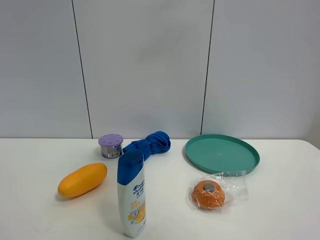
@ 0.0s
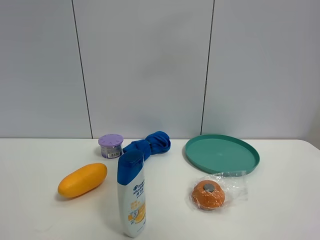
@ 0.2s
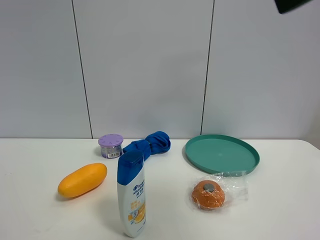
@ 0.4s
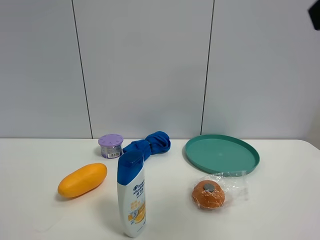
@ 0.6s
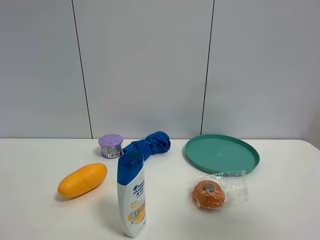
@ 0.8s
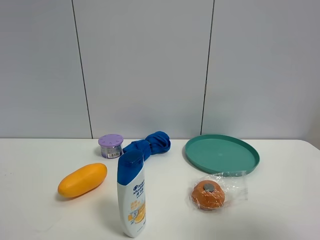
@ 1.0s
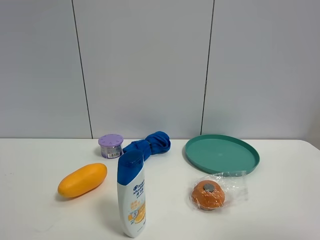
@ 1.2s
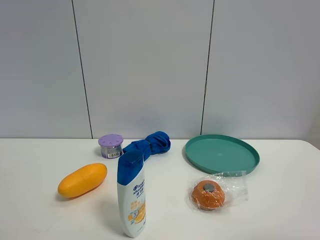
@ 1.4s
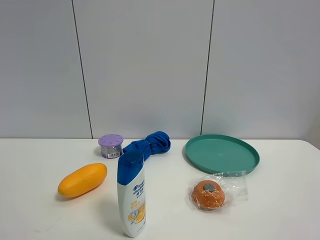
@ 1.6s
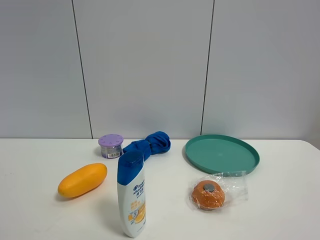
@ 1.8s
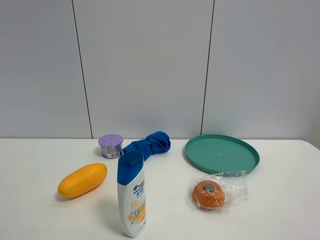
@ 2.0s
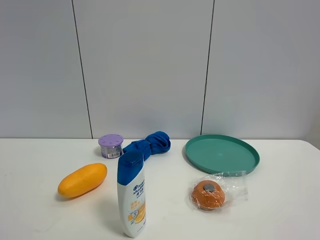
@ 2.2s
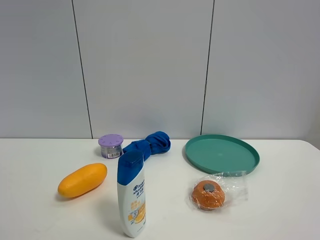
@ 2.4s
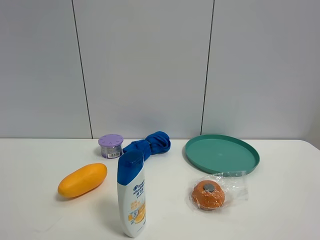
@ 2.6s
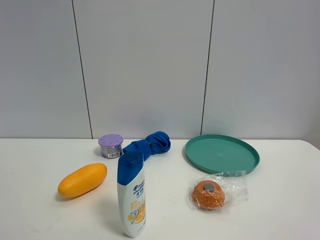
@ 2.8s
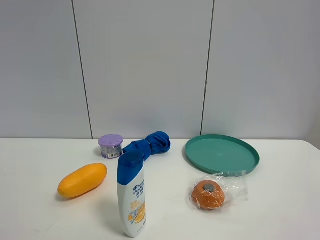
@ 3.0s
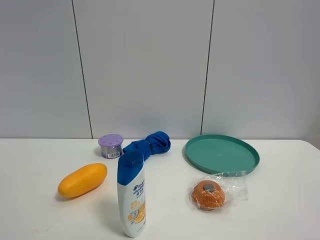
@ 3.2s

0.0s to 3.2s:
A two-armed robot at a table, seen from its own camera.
Task of the whole recording: the gripper move the object.
0.0s to 1.6s: The right gripper goes approximately 35 cm backward, downward and to the right.
1.6s to 3.2s: The two grippers keep their place.

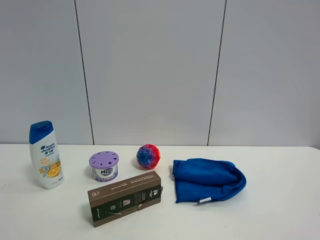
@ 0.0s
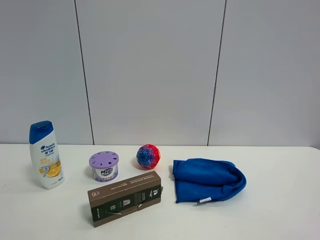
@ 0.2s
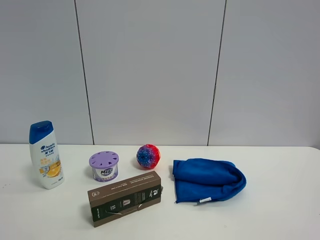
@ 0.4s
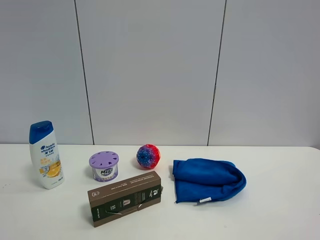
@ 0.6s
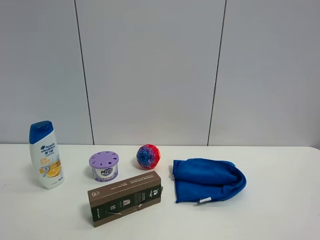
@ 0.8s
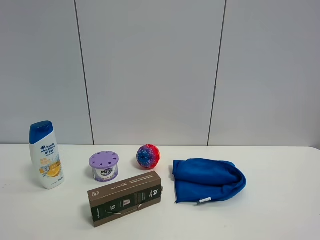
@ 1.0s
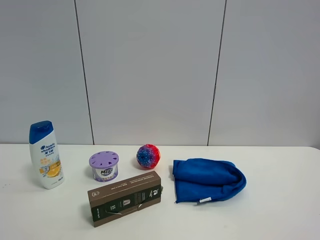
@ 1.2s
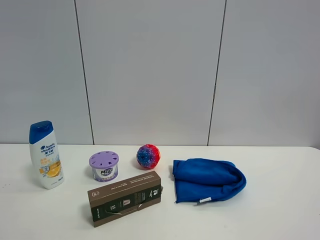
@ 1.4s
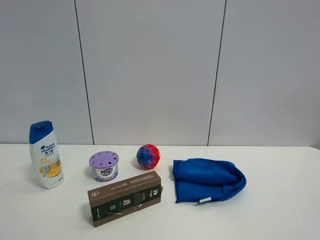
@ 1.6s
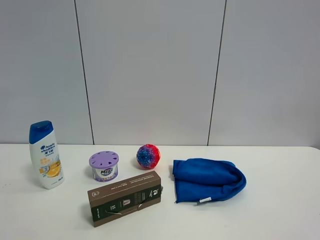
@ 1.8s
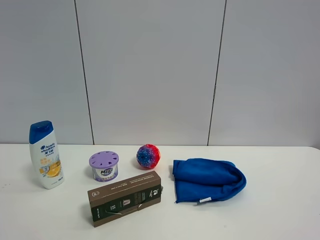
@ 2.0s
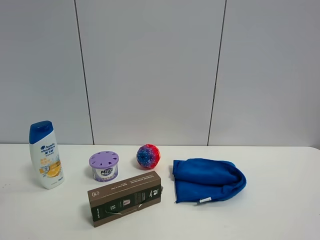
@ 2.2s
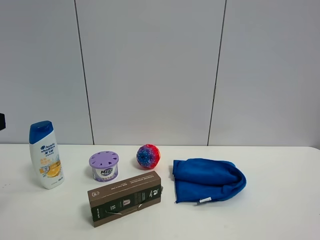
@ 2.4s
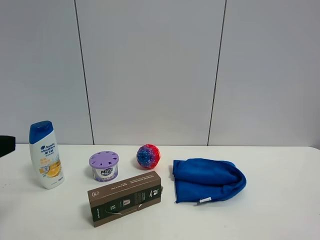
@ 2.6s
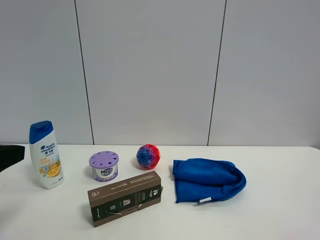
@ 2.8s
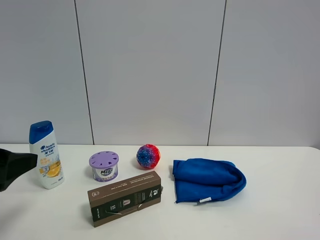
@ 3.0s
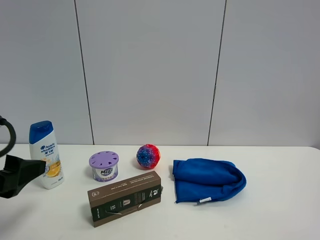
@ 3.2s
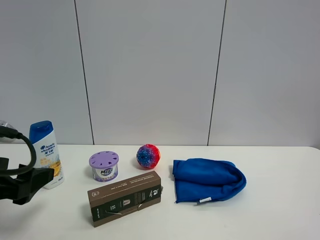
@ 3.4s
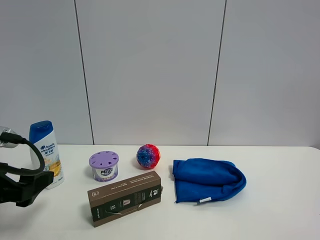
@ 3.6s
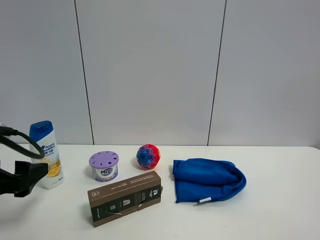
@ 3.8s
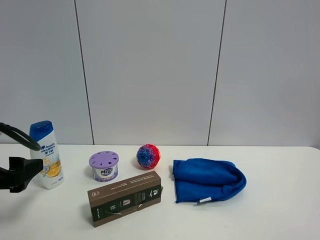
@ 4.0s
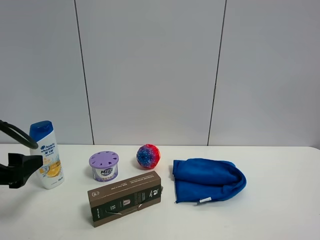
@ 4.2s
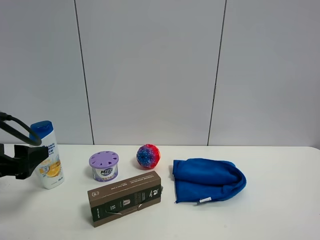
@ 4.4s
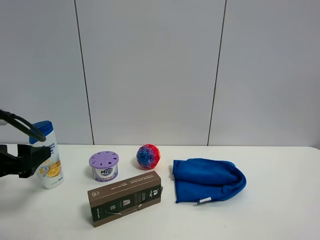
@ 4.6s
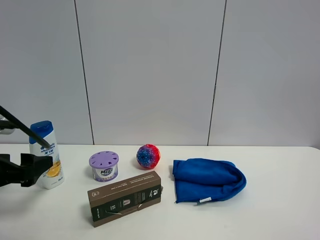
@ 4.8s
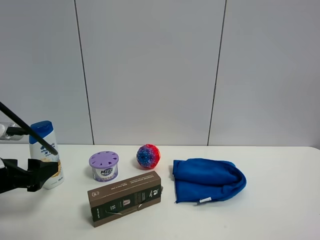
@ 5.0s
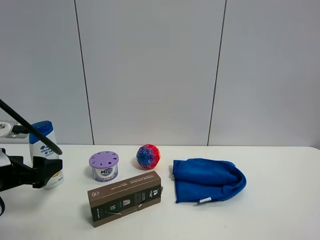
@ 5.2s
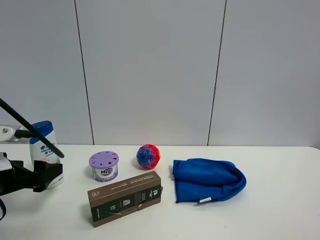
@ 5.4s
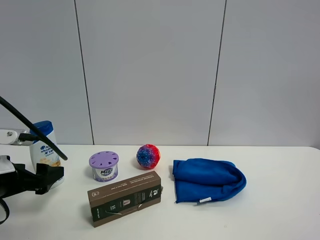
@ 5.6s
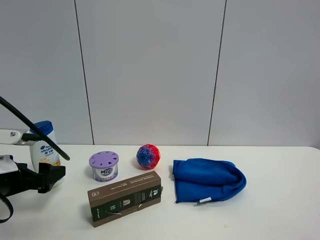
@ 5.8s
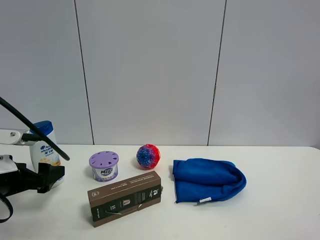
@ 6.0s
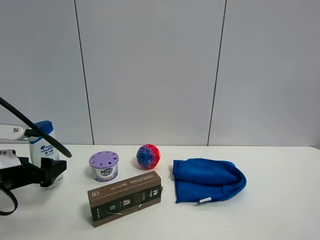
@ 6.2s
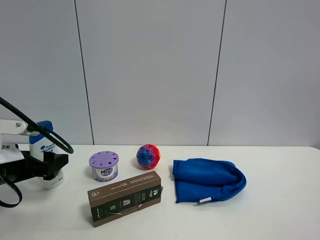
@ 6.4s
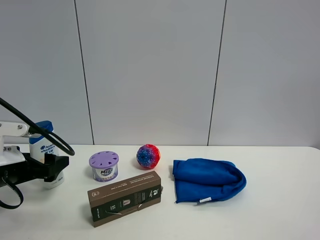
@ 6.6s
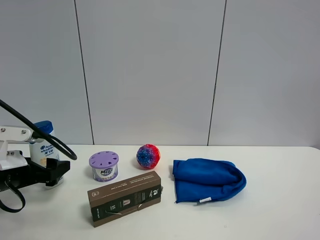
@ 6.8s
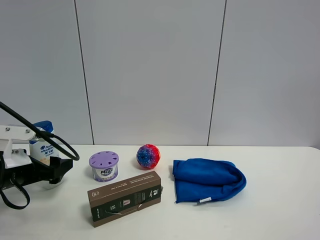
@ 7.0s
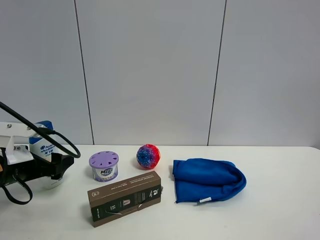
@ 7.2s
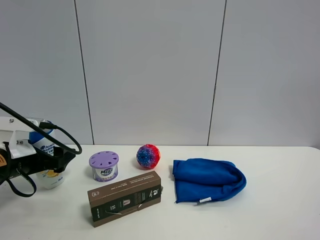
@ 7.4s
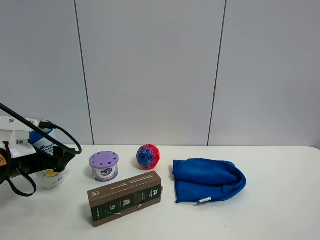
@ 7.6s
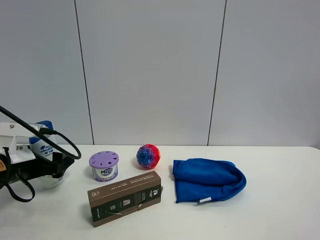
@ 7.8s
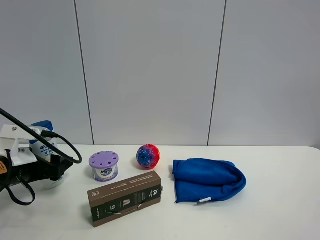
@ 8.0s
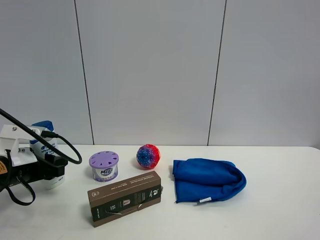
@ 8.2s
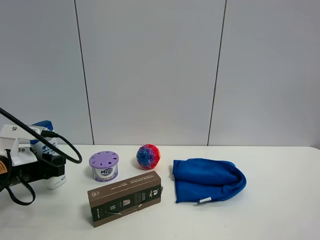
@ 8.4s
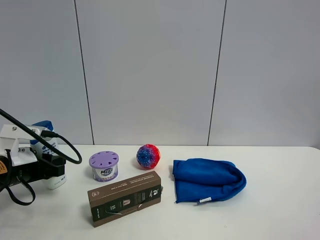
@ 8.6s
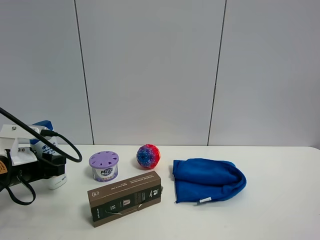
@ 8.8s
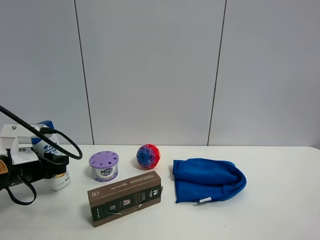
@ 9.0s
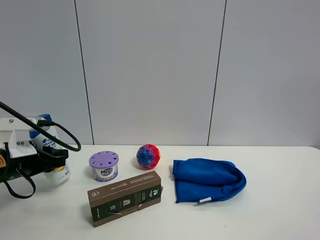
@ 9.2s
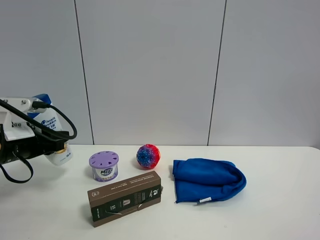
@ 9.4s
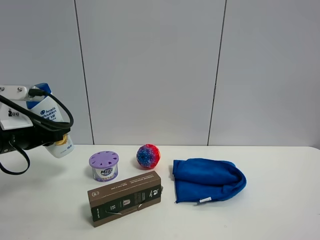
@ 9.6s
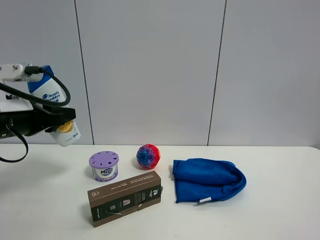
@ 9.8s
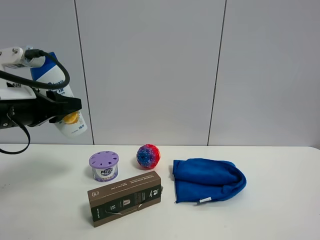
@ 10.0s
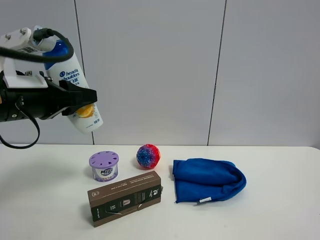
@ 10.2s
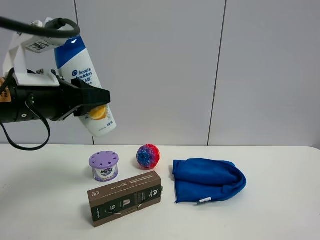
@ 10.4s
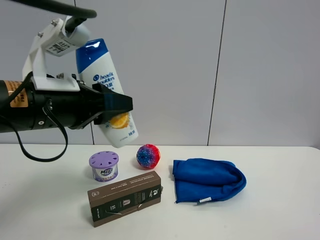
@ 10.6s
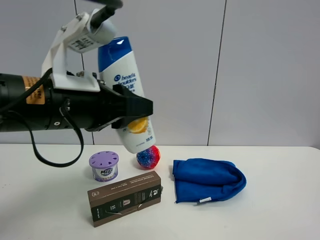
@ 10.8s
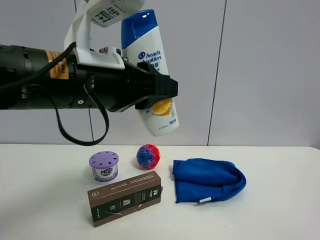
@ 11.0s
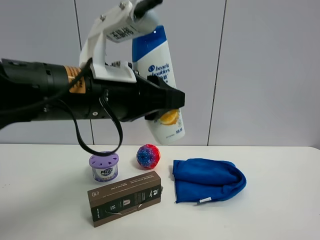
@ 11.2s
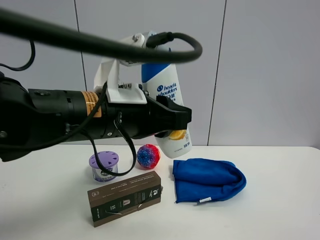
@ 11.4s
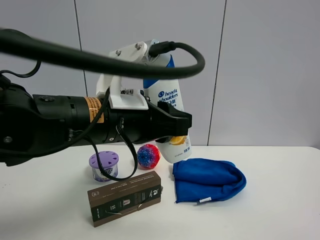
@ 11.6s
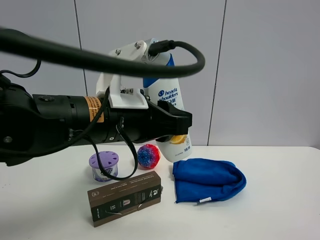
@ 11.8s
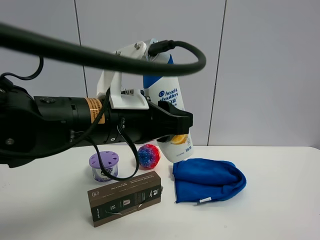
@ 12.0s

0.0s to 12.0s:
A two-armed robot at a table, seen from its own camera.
Task of the whole recording: the gripper move the object.
Step, 0.0s to 8.6s: Grasp the shampoo with the left gripper.
1.6s to 3.0s: The left gripper shifts about 15 cm downward.
3.0s to 4.4s: The left gripper travels forward by approximately 5 cm.
4.4s to 6.0s: The left gripper shifts roughly 5 cm downward.
6.0s to 7.6s: The left gripper shifts approximately 5 cm forward.
7.6s to 9.0s: The left gripper closes up.
9.0s to 10.4s: The left gripper goes approximately 20 cm upward and to the right.
10.4s to 12.0s: The left gripper goes some 10 cm to the right.

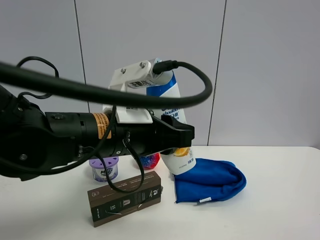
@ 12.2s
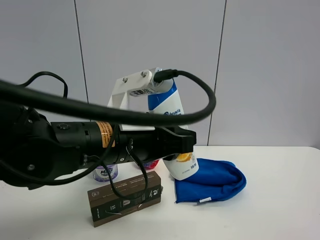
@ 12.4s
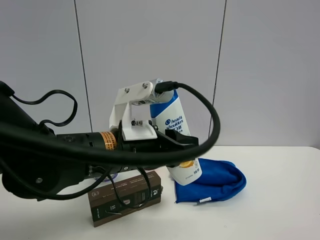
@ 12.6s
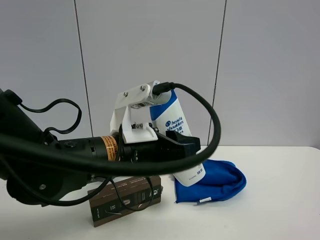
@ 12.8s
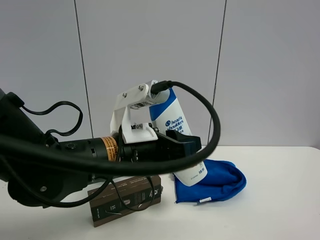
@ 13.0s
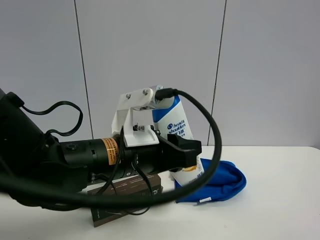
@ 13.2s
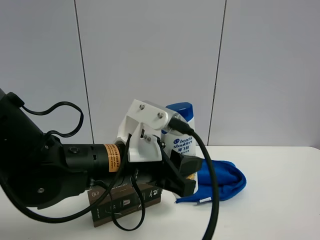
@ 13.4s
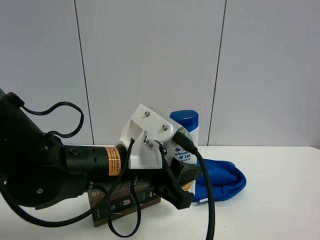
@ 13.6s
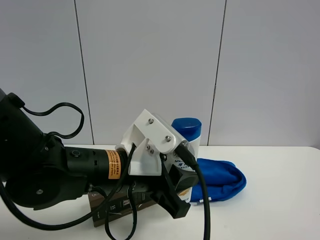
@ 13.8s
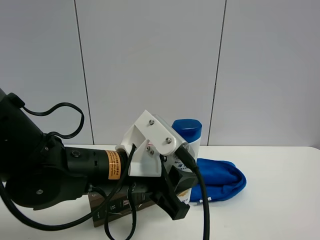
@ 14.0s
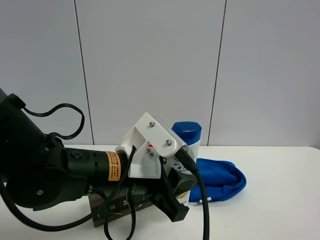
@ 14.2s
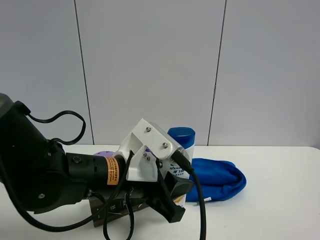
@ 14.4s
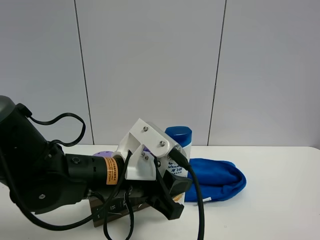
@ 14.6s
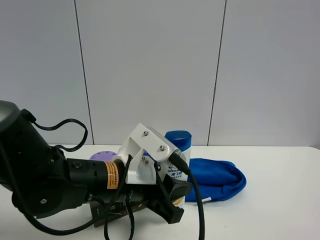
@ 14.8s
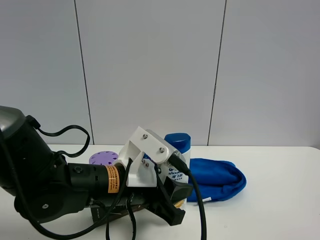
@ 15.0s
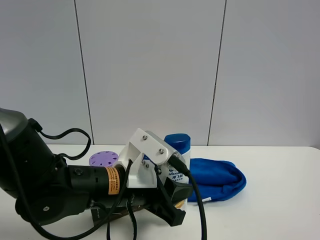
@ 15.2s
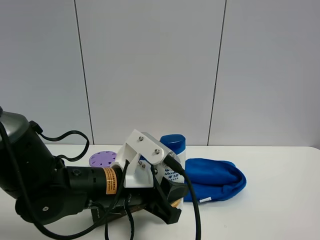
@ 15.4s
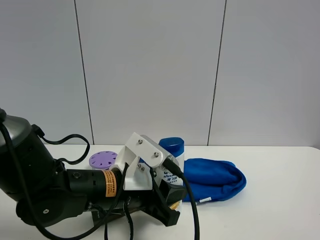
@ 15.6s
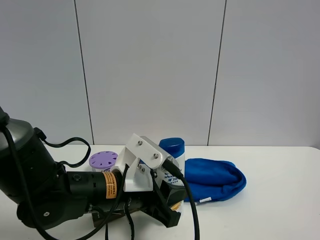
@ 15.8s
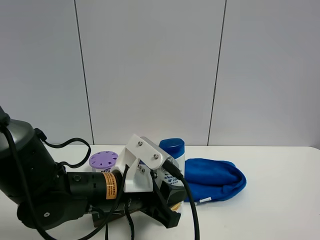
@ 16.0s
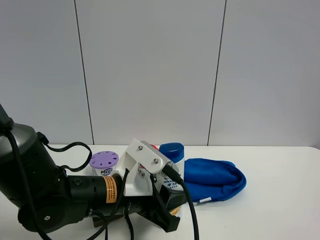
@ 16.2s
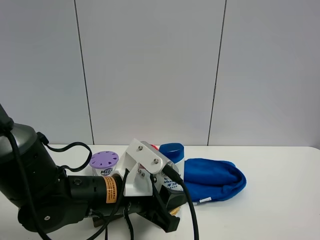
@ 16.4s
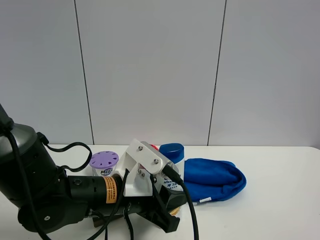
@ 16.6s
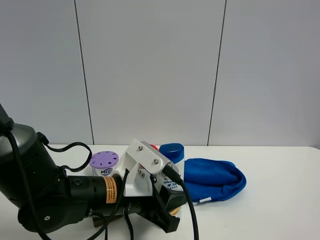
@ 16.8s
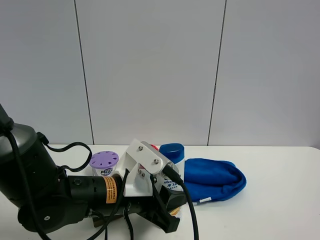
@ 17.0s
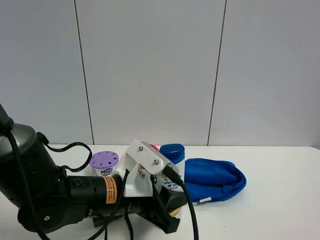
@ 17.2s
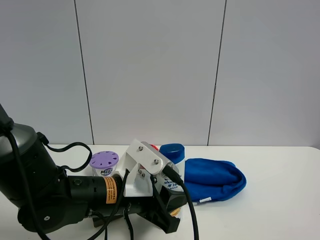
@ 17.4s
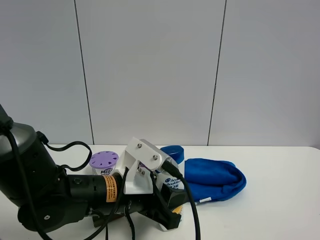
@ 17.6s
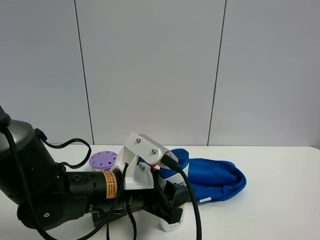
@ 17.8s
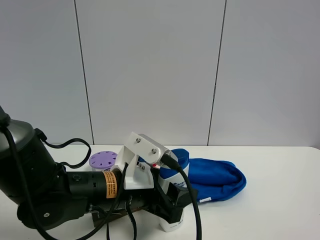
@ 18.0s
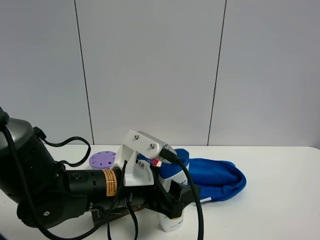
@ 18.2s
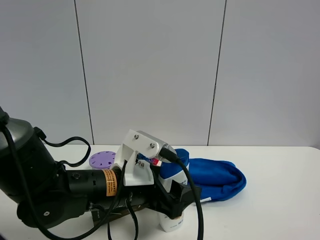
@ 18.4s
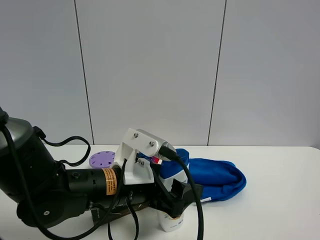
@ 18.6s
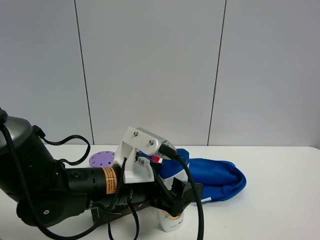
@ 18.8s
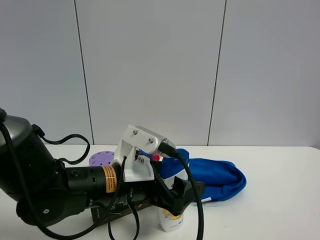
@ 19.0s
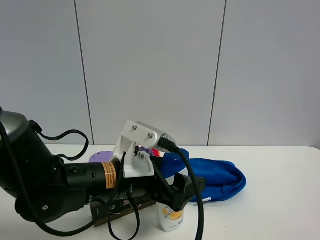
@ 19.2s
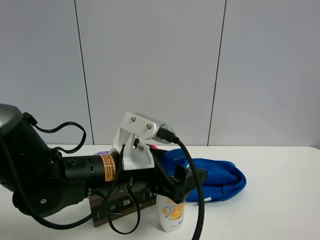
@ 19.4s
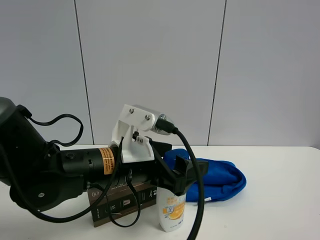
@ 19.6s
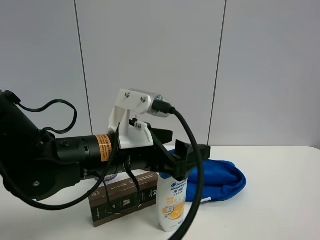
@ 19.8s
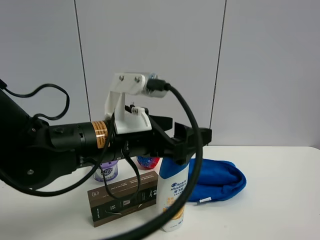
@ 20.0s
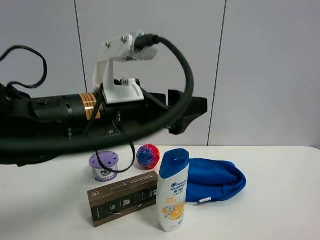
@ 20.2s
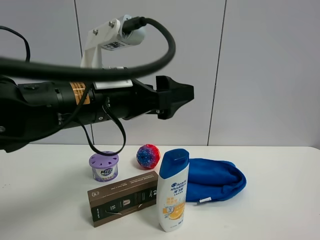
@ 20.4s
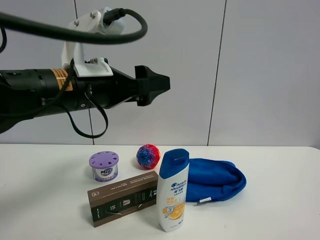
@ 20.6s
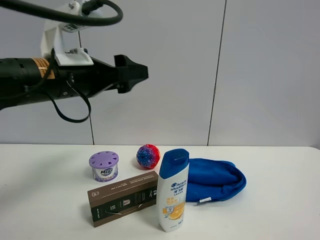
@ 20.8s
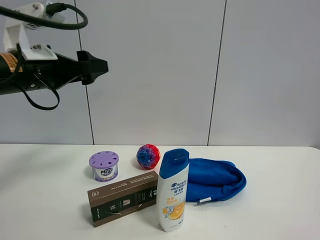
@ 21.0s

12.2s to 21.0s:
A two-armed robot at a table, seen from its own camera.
Task of the whole recording: the gripper move the object.
Step, 12.2s to 19.4s: Place the shampoo on the table with the left gripper.
12.2s to 13.6s: The left gripper moves about 5 cm.
13.6s to 15.2s: The grippers move only a little.
15.2s to 16.6s: There are only small adjustments of the grippers.
16.6s to 18.0s: The left gripper opens up.
18.0s to 19.6s: The left gripper opens up.
19.6s to 21.0s: The left gripper heads to the left and upward, covering some 20 cm.
